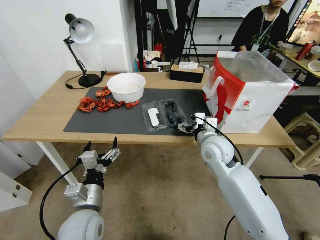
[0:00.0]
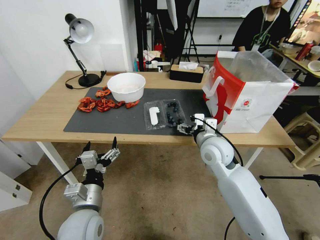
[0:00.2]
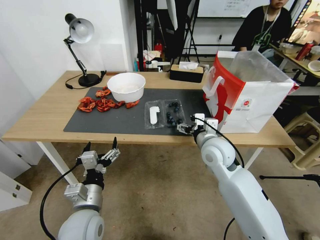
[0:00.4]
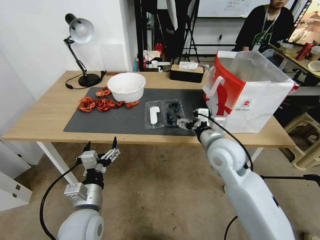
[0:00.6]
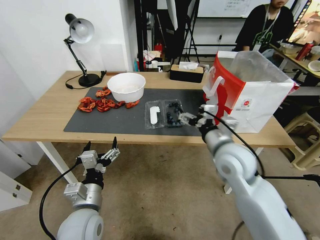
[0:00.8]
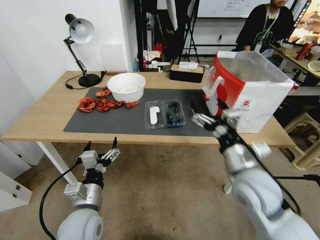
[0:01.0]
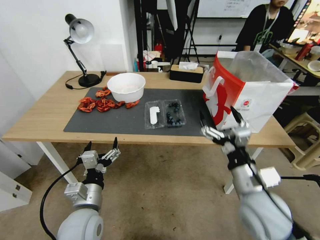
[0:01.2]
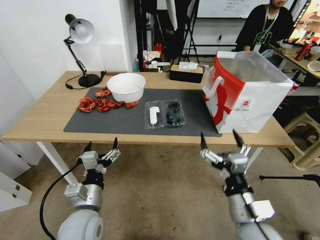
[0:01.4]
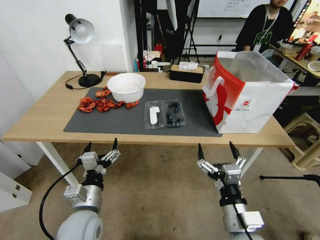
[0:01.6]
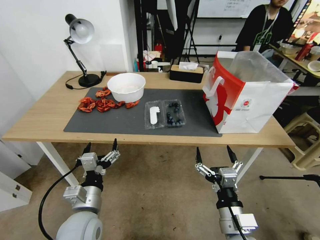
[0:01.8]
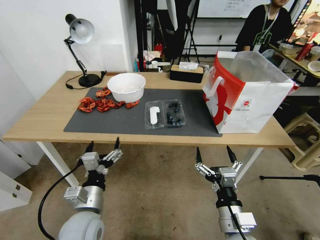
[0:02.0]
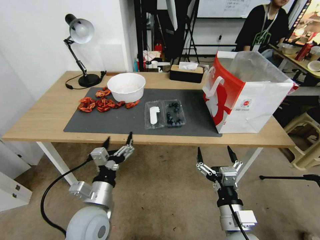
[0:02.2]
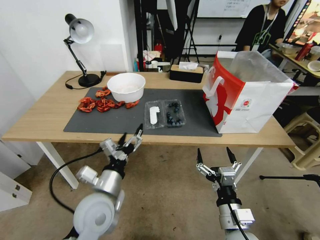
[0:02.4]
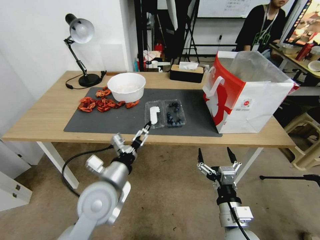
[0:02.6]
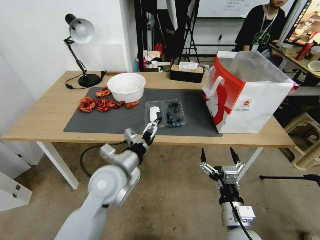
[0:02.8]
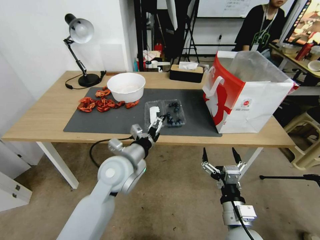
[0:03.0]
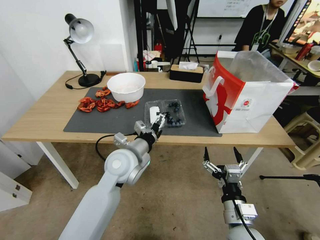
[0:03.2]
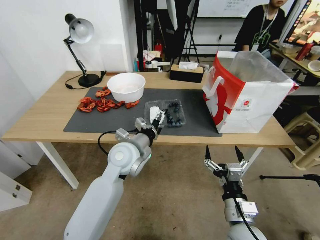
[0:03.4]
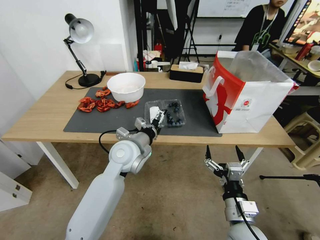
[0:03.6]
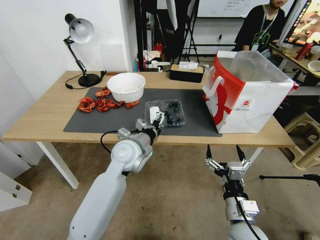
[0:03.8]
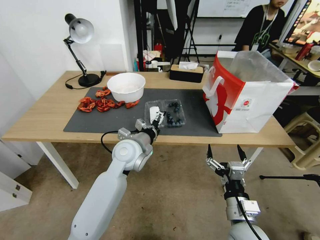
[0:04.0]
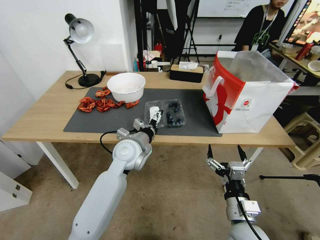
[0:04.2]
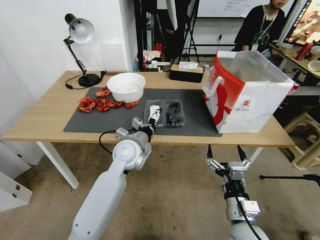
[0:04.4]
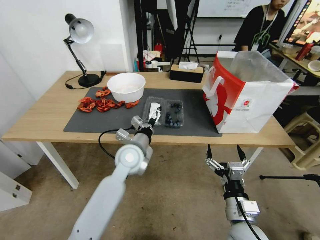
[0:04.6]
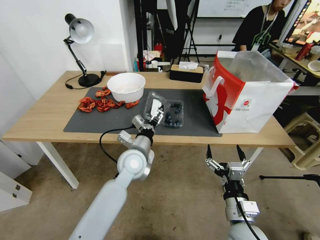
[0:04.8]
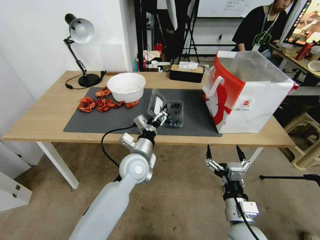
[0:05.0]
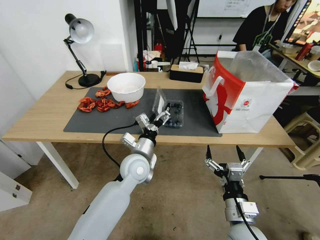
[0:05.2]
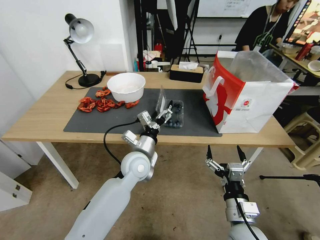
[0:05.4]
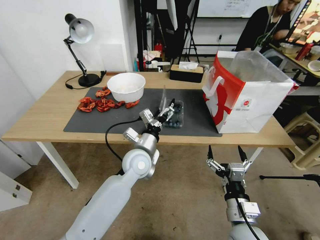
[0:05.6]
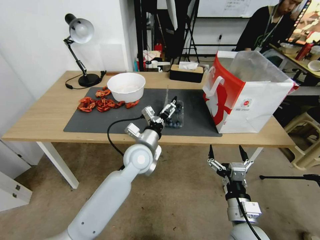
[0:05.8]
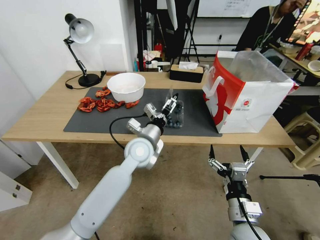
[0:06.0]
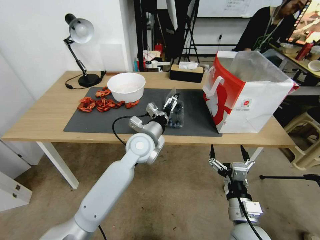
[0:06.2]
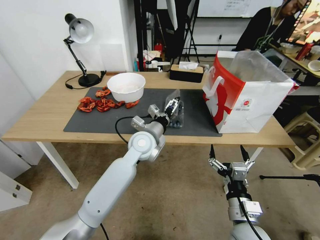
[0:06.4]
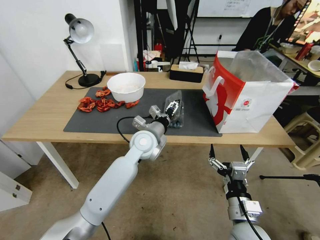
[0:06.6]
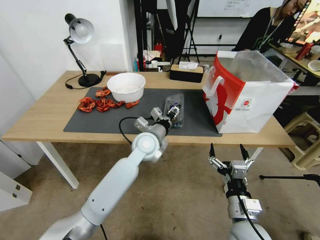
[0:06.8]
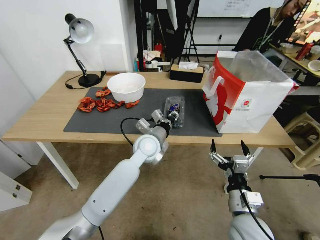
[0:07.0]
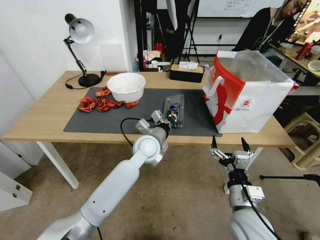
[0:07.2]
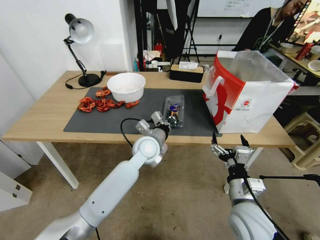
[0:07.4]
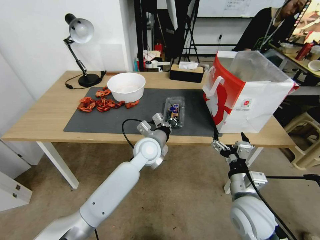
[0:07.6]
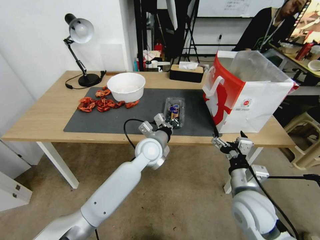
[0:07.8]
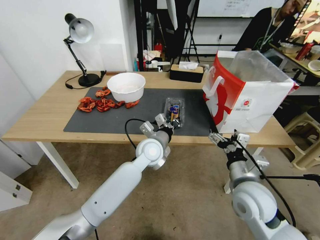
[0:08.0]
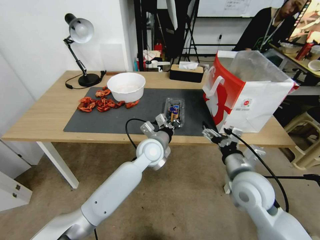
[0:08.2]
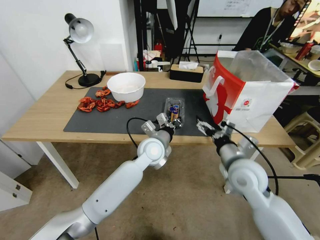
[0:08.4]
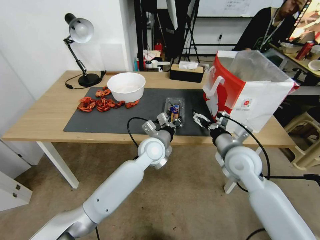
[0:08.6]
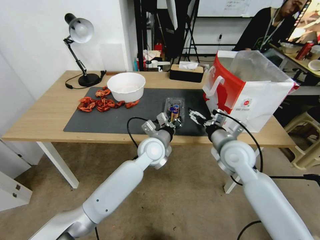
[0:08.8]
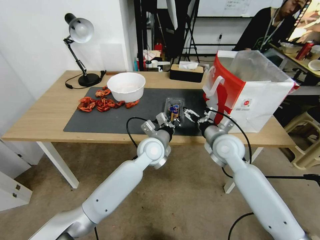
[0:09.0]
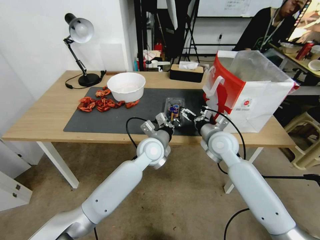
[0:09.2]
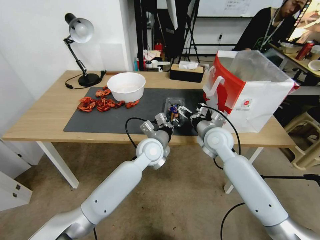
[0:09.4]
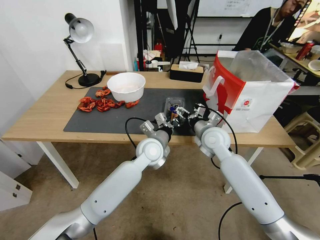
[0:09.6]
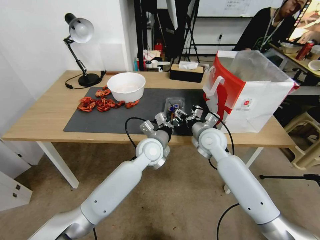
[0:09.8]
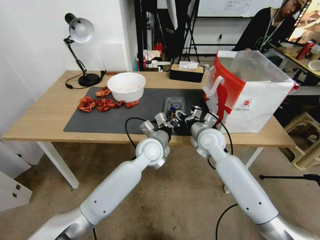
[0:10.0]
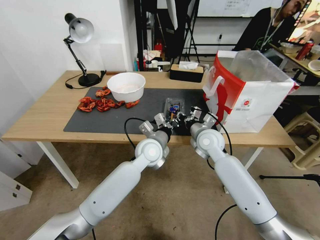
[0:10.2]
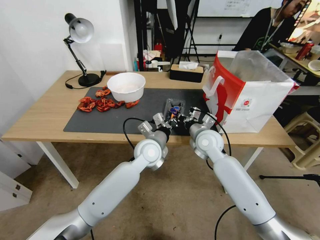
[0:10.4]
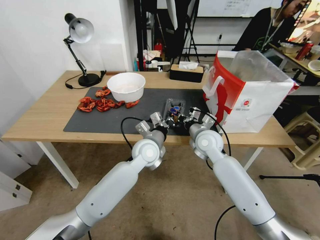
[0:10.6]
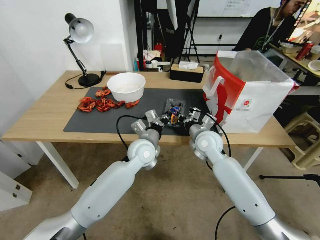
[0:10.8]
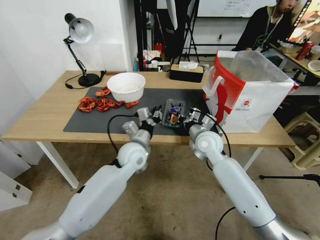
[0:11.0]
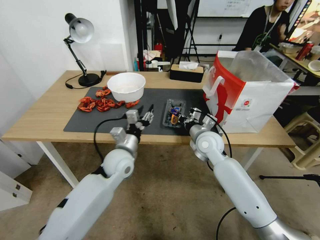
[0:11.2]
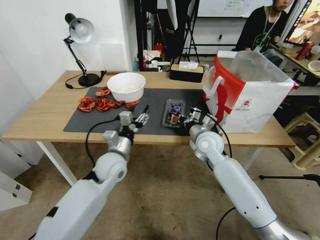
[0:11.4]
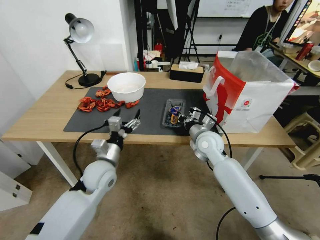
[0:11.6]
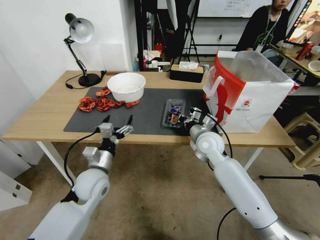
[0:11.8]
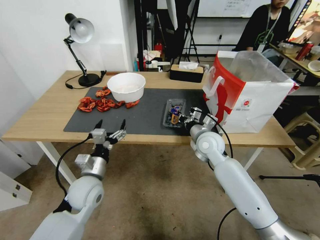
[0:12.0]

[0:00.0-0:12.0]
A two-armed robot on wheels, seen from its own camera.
Task of the whole recording: Close the takeout container lid, then place the container into the takeout bag.
0.0 to 1.6 s: The right gripper travels backward by roughly 25 cm.
1.6 to 3.0 s: The left gripper goes approximately 15 cm forward, to the right and upward.
3.0 to 4.4 s: The left gripper moves forward, about 5 cm.
6.0 to 7.6 s: The left gripper closes its fingers; the right gripper moves forward, roughly 5 cm.
7.6 to 9.0 s: The right gripper is displaced forward by some 20 cm.
9.0 to 10.4 s: The right gripper shifts by roughly 5 cm, and closes.
10.4 to 12.0 s: The left gripper travels to the left and backward by roughly 20 cm, and opens.

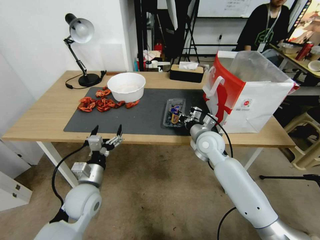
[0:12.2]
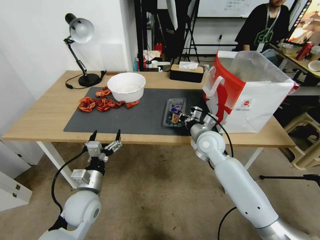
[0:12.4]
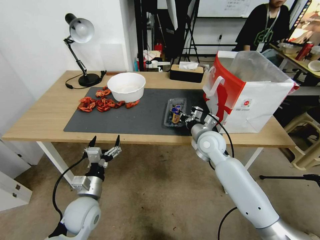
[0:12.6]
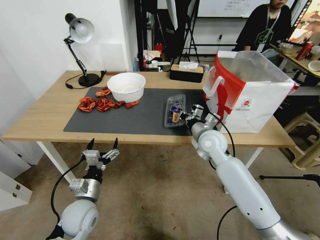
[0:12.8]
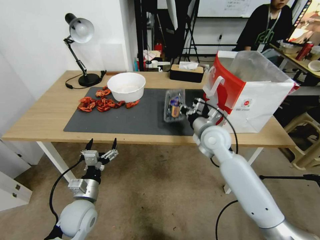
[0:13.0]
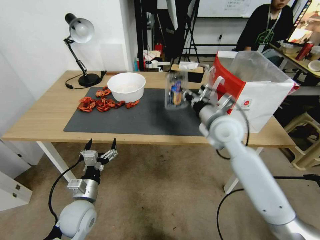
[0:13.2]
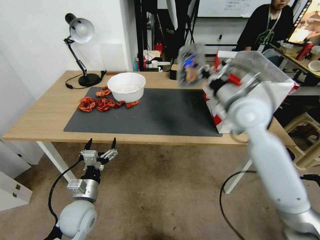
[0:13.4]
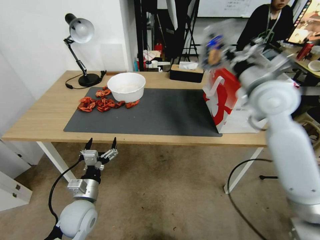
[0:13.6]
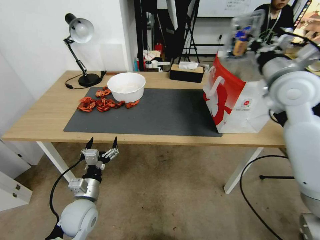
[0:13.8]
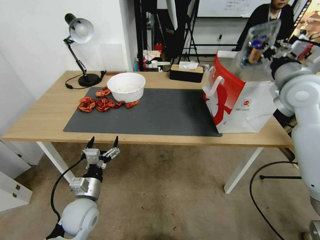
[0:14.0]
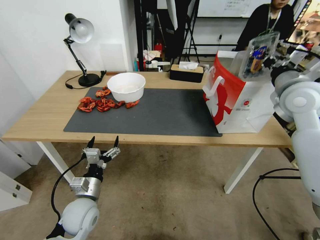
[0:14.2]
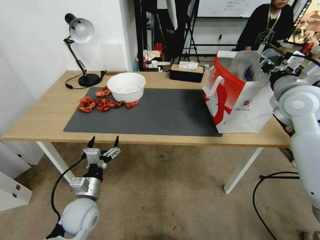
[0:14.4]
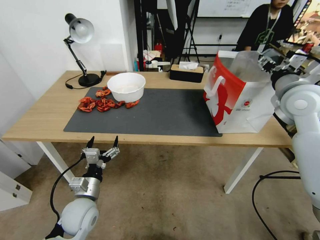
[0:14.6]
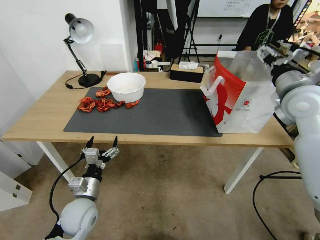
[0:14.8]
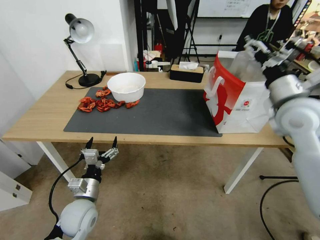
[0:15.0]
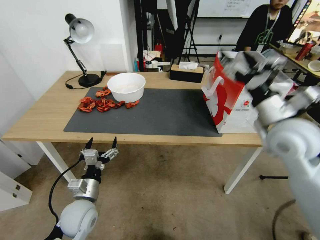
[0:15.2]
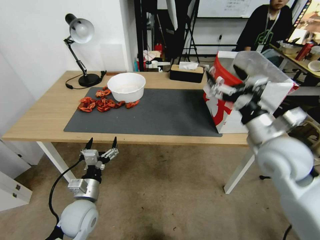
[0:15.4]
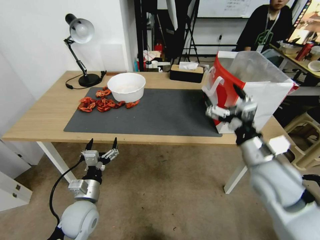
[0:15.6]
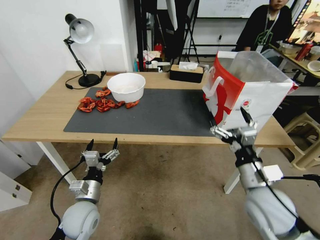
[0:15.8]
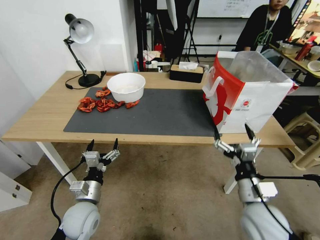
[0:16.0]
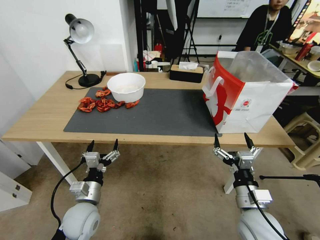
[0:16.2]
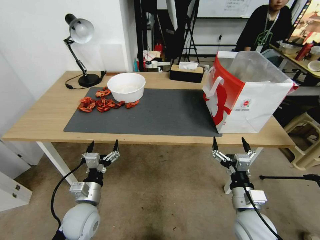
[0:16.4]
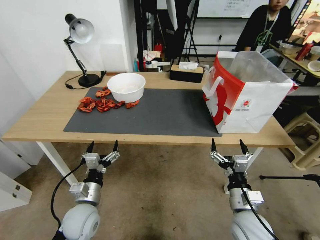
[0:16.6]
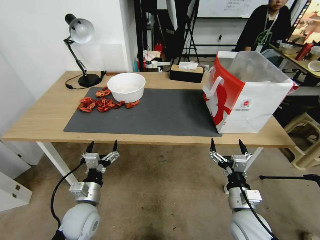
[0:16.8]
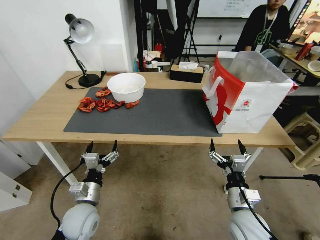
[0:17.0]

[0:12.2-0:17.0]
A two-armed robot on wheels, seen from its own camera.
Task of the whole recording: Close the takeout container lid, then place the container into the takeout bag.
12.2 to 13.8 s: The right gripper shifts about 30 cm upward and to the right.
13.8 to 15.4 s: The right gripper moves backward and downward, some 15 cm, and opens up.
15.4 to 17.0 s: The right gripper heads downward and backward, covering about 25 cm.

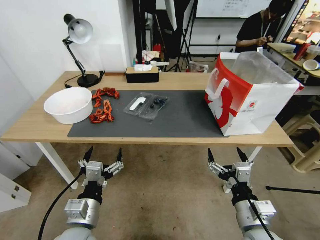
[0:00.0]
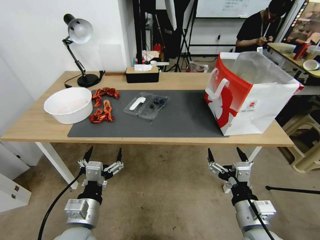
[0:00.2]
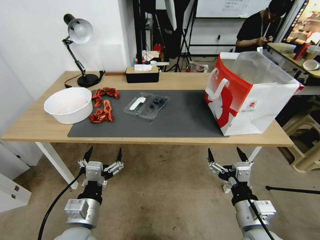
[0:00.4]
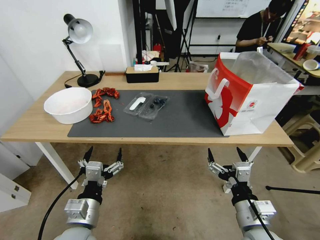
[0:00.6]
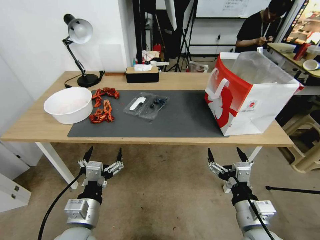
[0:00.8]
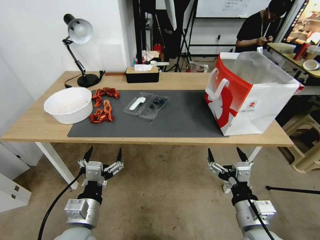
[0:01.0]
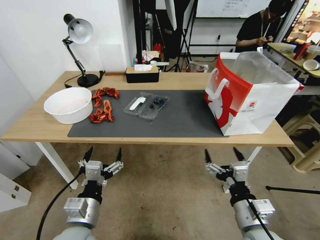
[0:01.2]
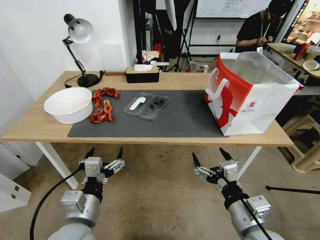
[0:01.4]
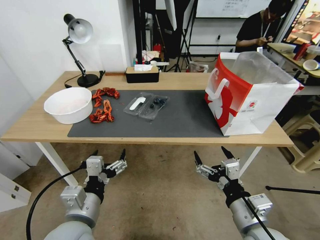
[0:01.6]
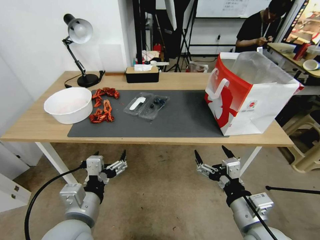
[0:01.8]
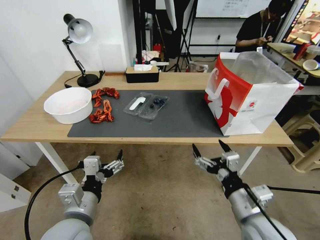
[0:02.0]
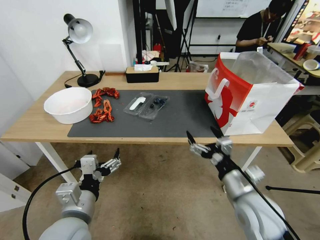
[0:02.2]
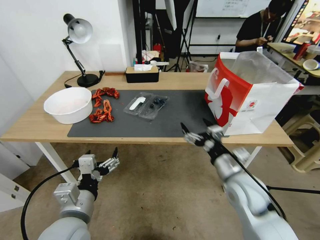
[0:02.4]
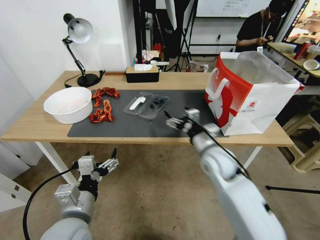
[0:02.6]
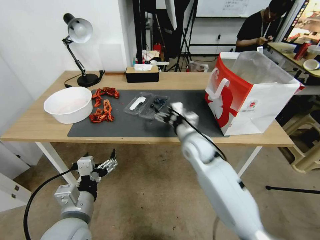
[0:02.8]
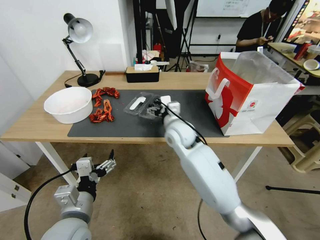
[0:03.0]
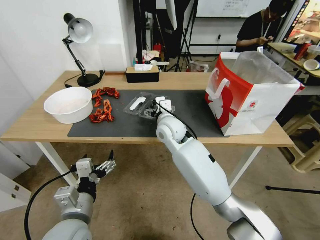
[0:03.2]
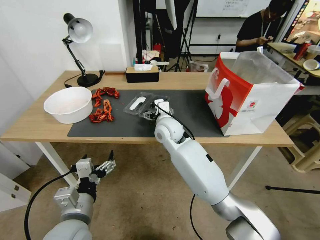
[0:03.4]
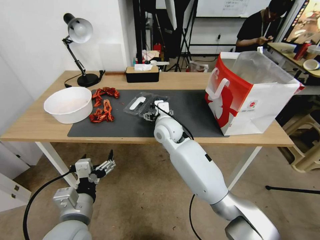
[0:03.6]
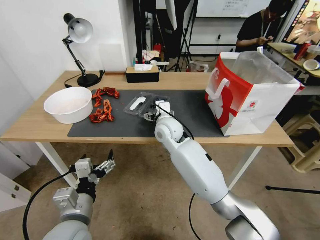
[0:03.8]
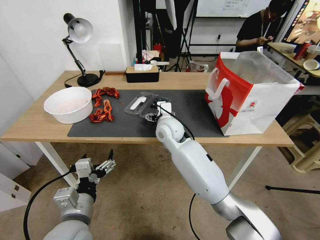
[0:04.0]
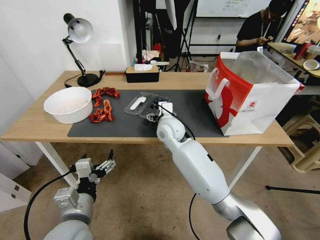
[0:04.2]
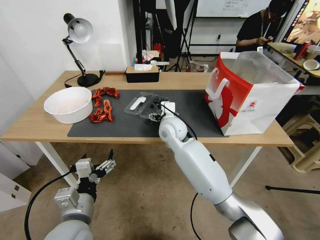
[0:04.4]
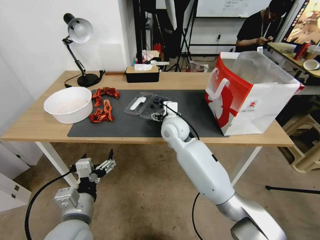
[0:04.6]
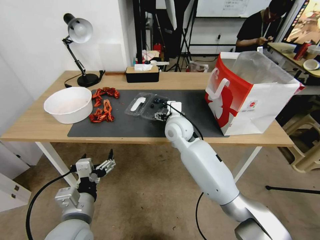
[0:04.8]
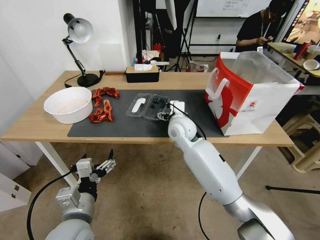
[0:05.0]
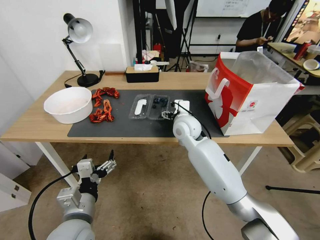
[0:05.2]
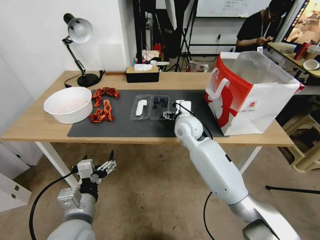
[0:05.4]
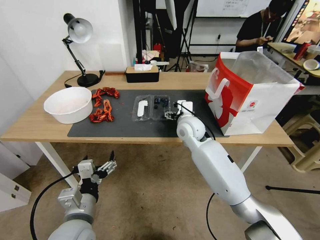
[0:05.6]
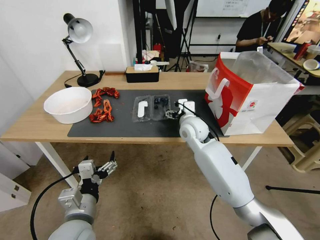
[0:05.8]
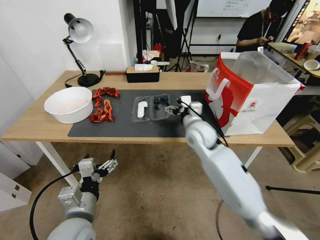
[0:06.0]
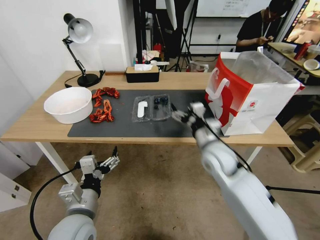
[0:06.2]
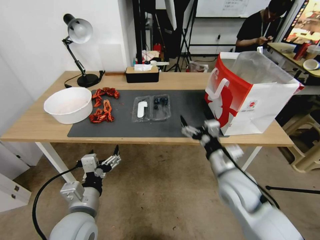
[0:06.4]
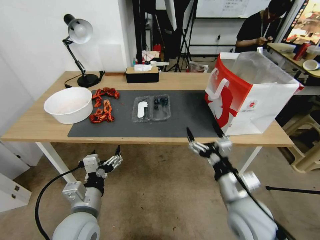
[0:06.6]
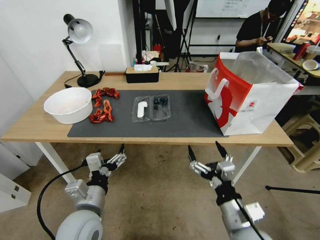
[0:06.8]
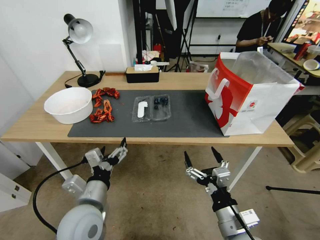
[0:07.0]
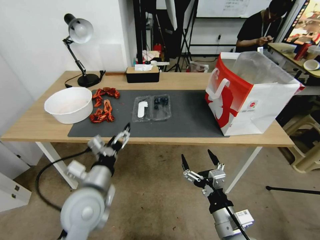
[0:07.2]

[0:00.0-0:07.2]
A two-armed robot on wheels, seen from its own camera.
Task of the whole recording: Close the takeout container lid, then place the container into the takeout bag.
1.4 to 2.8 s: The right gripper heads forward and to the left, covering some 30 cm.
2.8 to 4.4 s: The right gripper travels to the left and forward by some 10 cm.
4.4 to 5.8 s: The right gripper moves to the right, some 10 cm.
5.8 to 7.2 s: The left gripper shifts approximately 5 cm forward. Meanwhile the right gripper goes roughly 35 cm backward.
